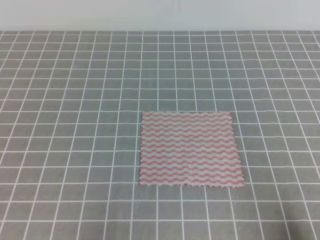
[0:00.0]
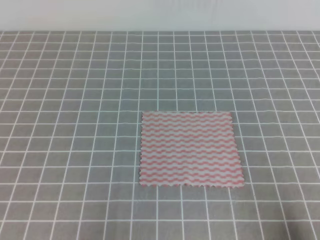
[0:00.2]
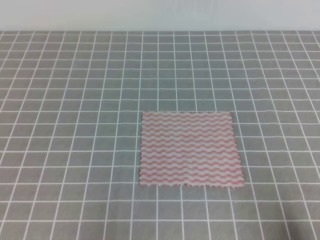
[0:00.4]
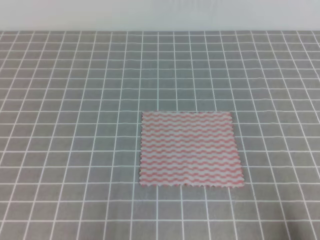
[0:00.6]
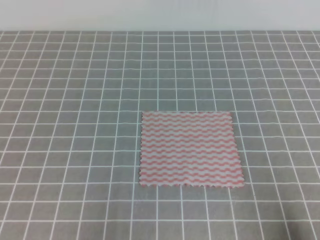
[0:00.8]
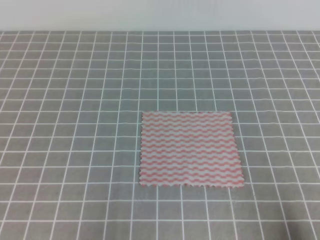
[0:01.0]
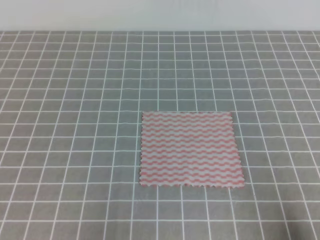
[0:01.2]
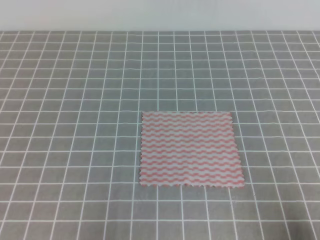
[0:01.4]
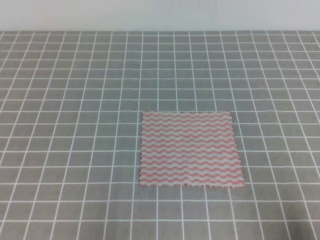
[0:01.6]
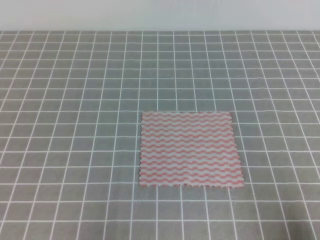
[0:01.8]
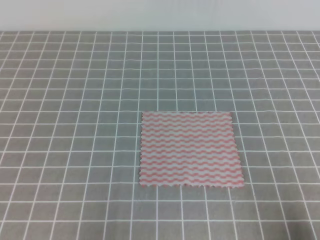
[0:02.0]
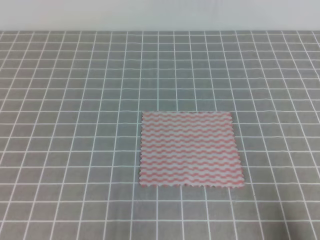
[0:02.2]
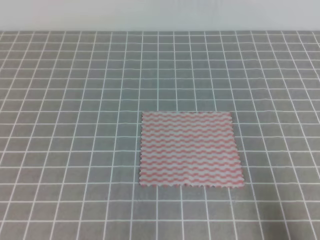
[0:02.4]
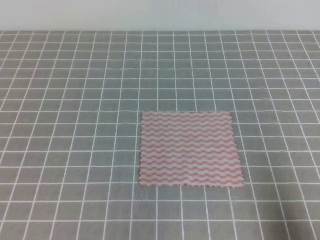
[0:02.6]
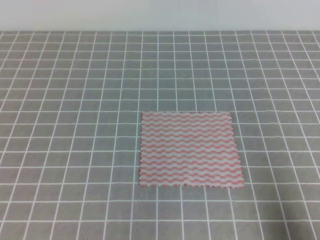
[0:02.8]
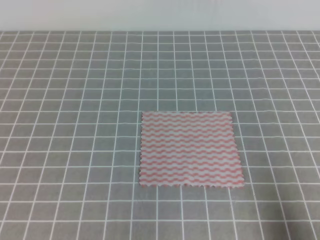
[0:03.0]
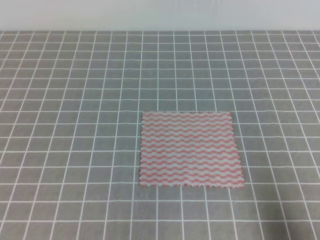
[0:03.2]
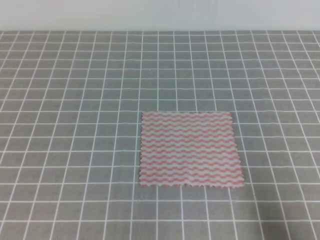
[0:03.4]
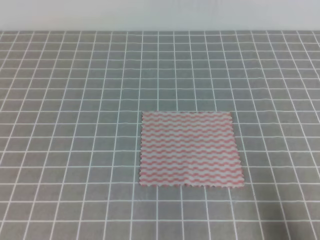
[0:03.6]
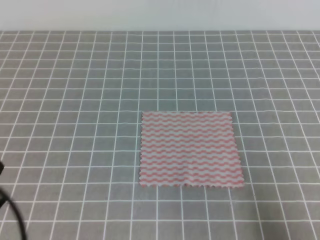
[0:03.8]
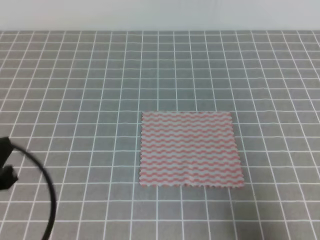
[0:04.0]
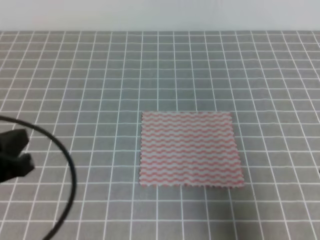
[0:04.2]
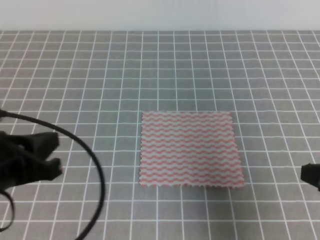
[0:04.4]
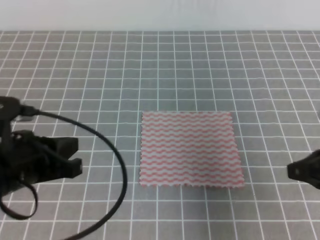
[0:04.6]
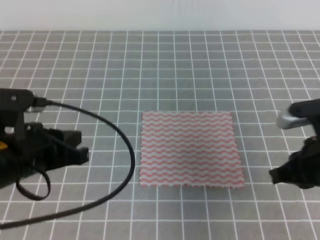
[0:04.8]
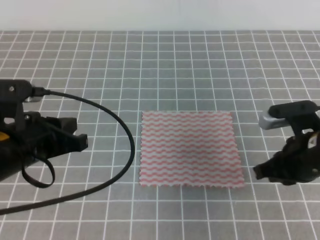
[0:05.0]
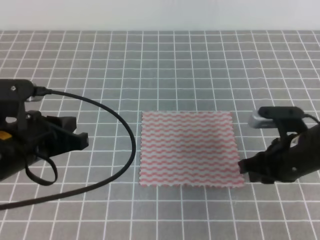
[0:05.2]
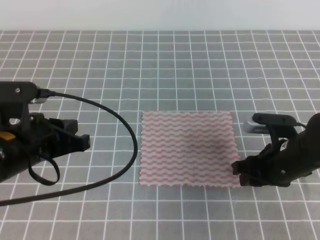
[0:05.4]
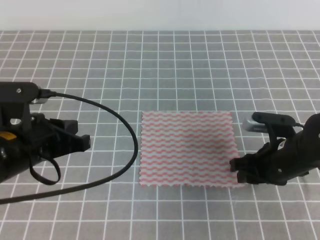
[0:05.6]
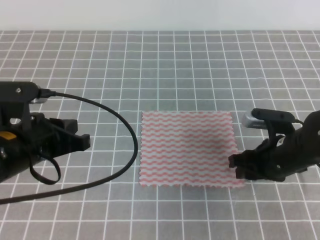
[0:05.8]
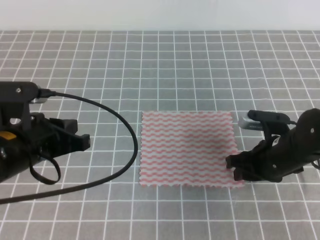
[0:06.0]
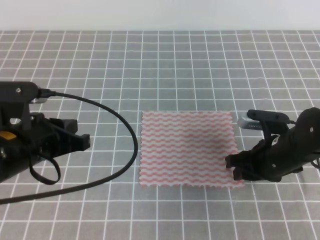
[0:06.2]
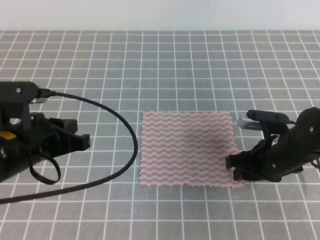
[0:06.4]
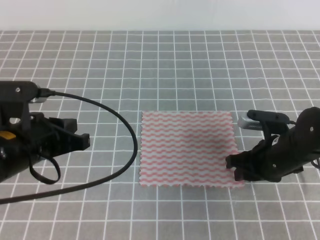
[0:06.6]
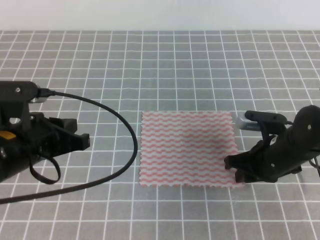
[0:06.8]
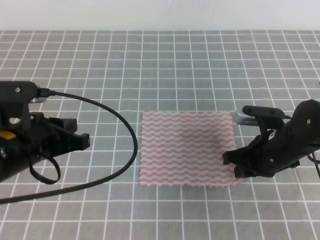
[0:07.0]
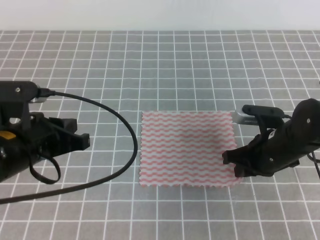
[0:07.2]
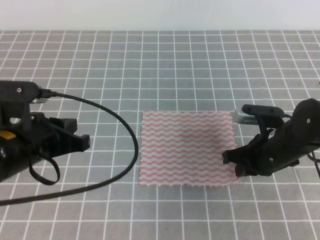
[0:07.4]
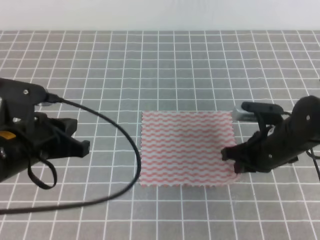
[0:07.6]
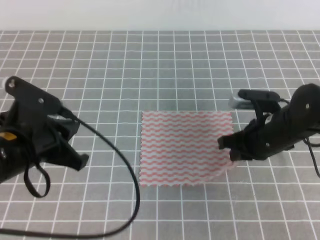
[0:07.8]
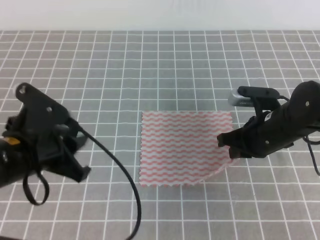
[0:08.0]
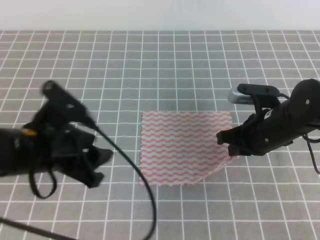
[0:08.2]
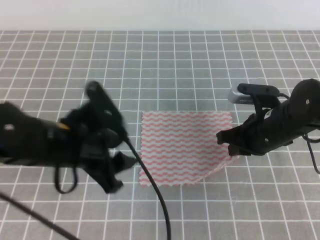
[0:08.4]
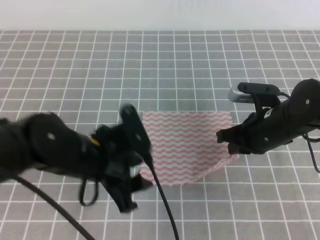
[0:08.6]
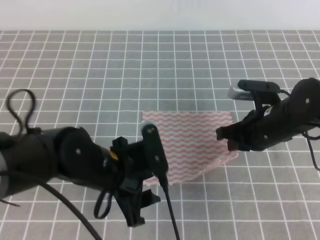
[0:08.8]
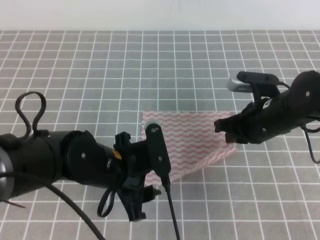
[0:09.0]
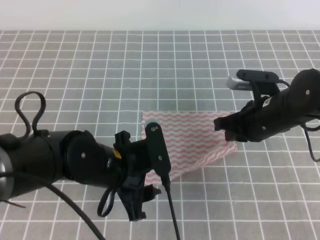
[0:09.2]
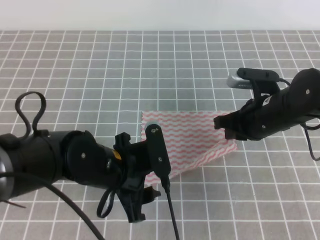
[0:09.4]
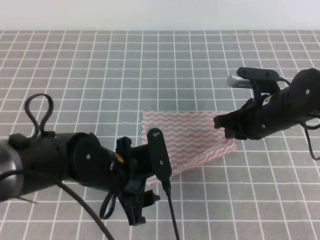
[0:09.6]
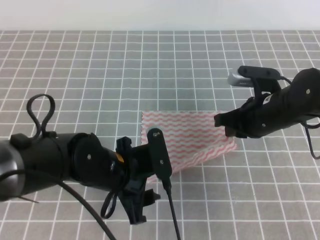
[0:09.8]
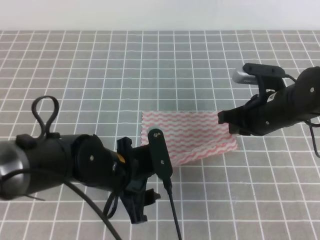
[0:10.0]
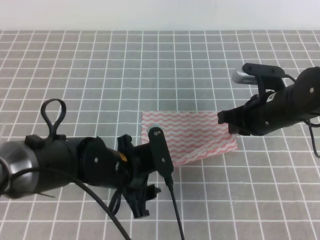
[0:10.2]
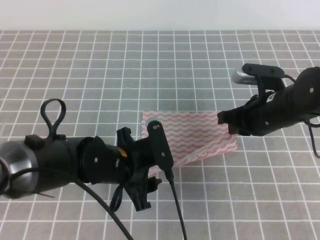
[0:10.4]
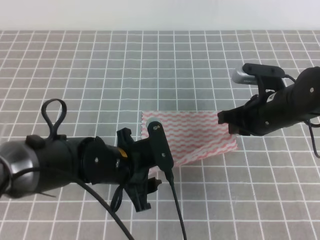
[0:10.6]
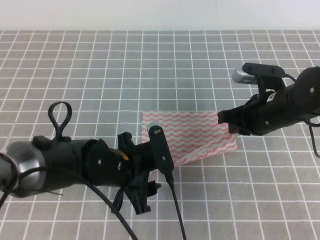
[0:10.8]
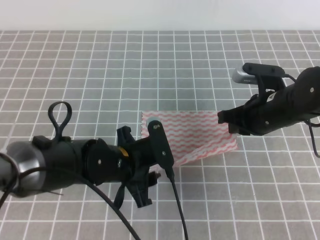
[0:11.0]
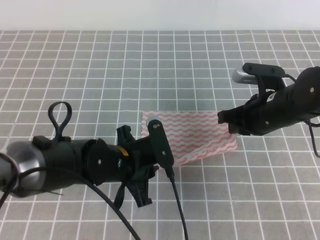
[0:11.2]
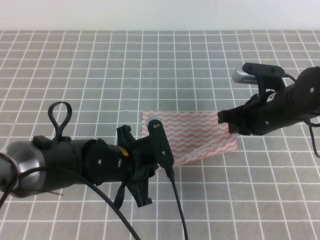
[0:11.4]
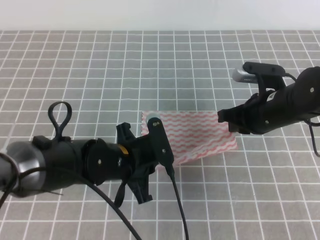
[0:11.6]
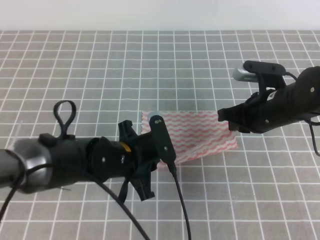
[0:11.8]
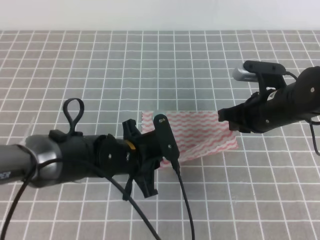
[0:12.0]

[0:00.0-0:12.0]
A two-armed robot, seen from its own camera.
0:03.0 to 0:04.4: The right gripper travels forward, to the left and upward by some 10 cm, while the left gripper moves forward, upward and to the right, some 15 cm.
0:04.4 to 0:06.0: The left gripper heads forward, covering approximately 5 cm. Meanwhile the right gripper moves forward, downward and to the left, roughly 20 cm, and opens.
0:06.0 to 0:07.6: The right gripper closes its fingers.
0:07.6 to 0:09.0: The left gripper heads to the right and downward, covering some 10 cm, and opens up.
0:09.0 to 0:10.4: The grippers stay close to where they were, moving slightly.
0:10.4 to 0:12.0: The left gripper closes.

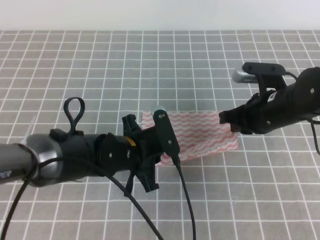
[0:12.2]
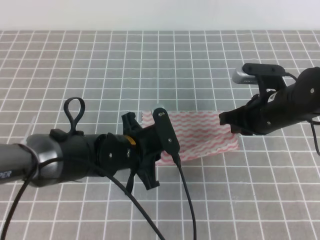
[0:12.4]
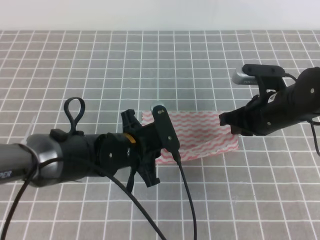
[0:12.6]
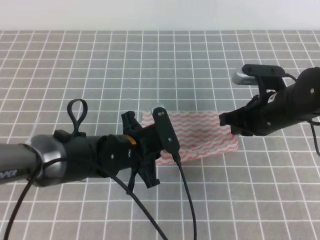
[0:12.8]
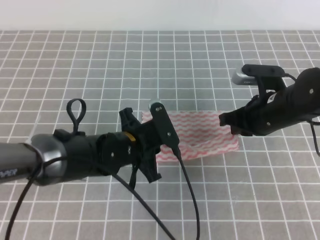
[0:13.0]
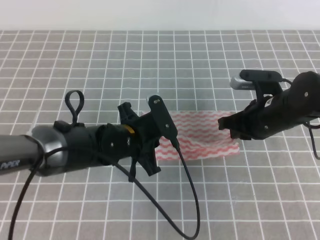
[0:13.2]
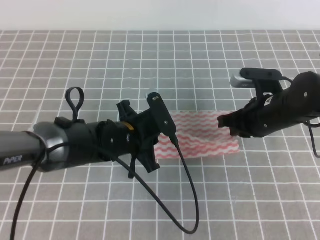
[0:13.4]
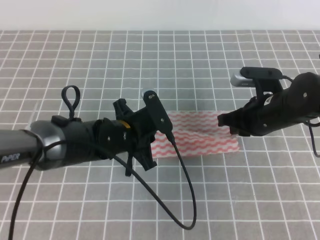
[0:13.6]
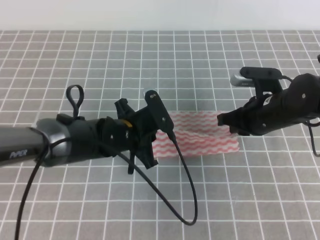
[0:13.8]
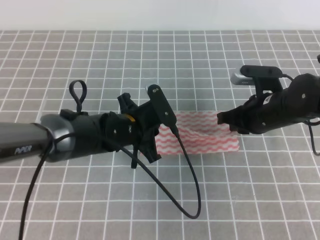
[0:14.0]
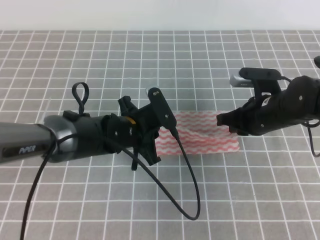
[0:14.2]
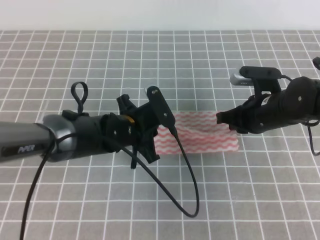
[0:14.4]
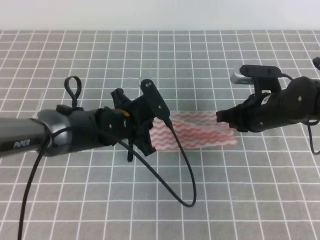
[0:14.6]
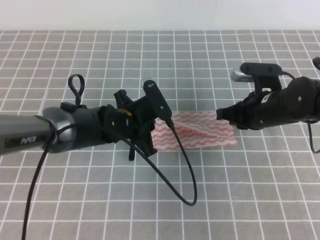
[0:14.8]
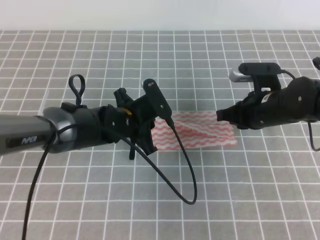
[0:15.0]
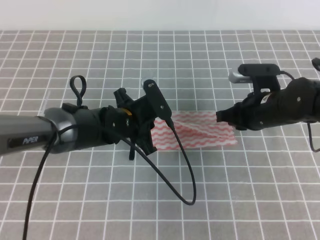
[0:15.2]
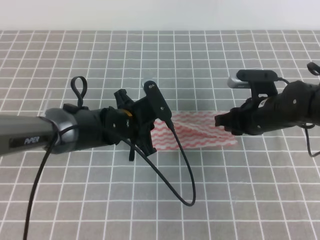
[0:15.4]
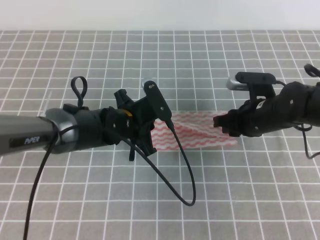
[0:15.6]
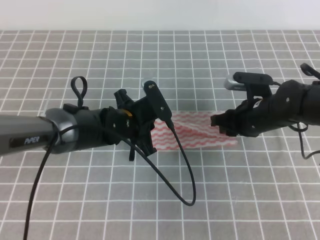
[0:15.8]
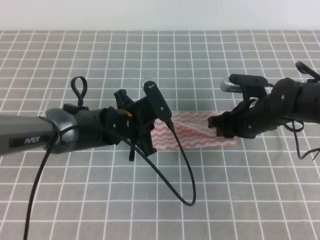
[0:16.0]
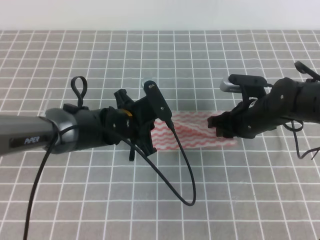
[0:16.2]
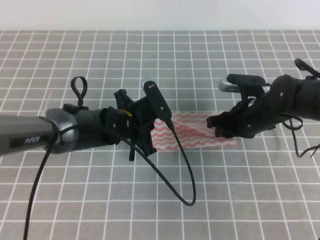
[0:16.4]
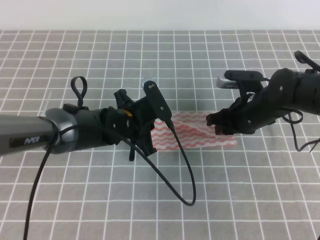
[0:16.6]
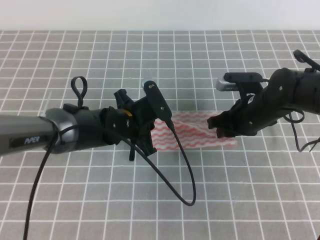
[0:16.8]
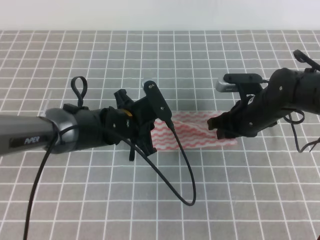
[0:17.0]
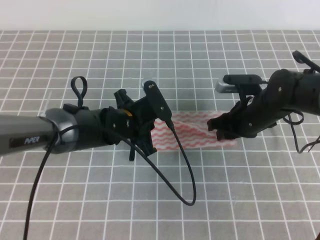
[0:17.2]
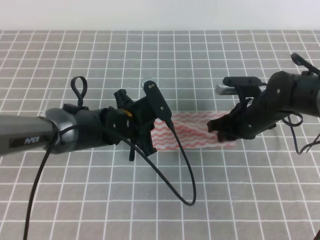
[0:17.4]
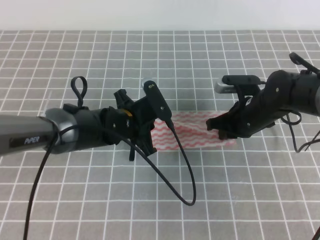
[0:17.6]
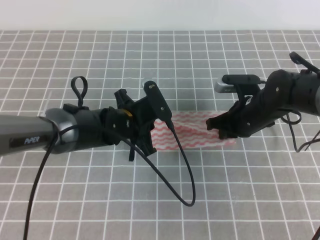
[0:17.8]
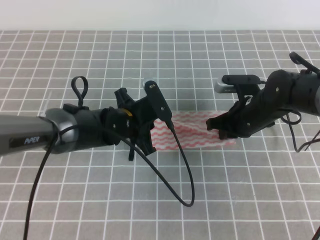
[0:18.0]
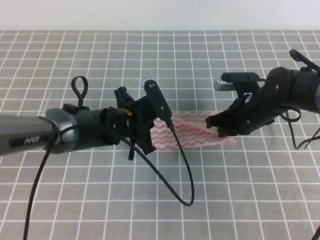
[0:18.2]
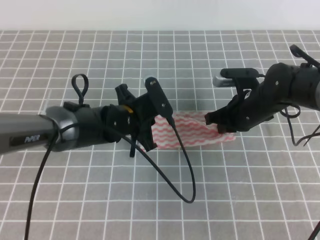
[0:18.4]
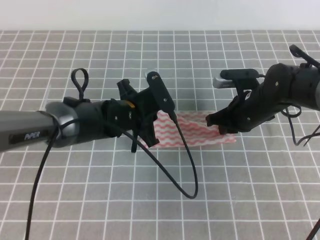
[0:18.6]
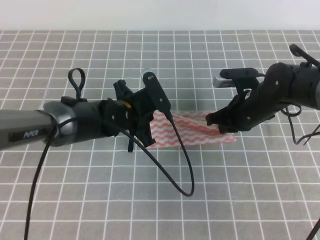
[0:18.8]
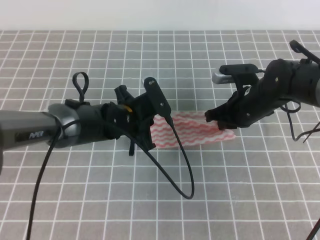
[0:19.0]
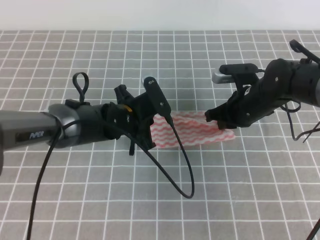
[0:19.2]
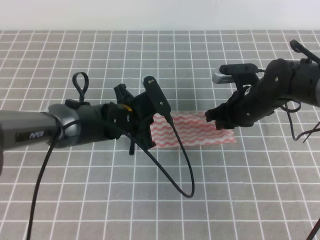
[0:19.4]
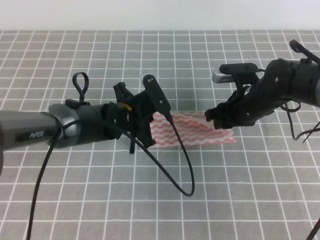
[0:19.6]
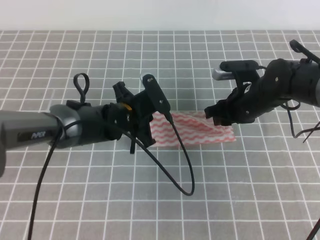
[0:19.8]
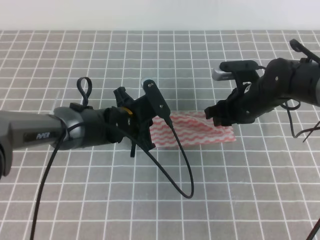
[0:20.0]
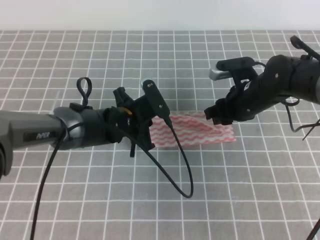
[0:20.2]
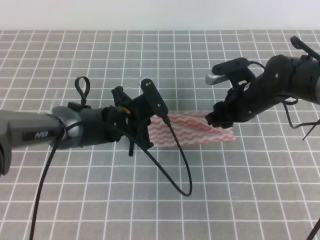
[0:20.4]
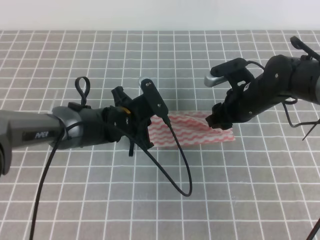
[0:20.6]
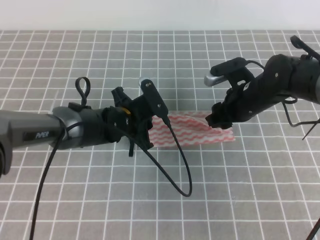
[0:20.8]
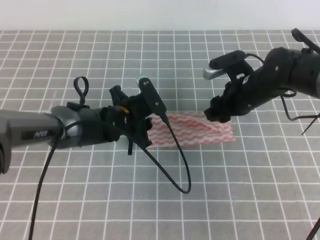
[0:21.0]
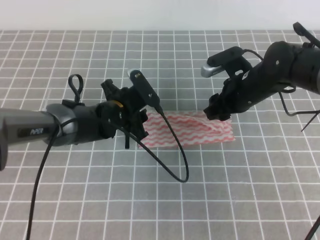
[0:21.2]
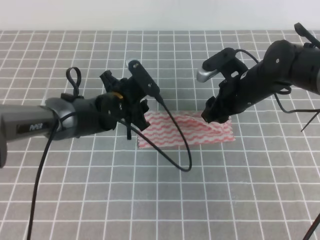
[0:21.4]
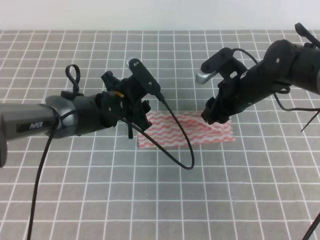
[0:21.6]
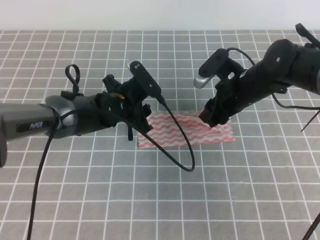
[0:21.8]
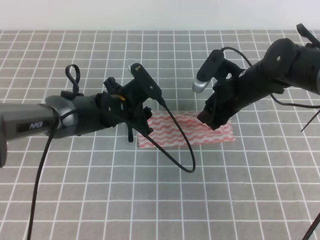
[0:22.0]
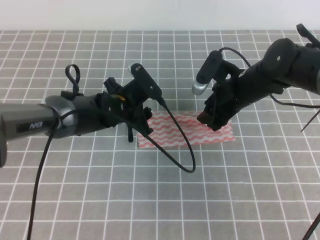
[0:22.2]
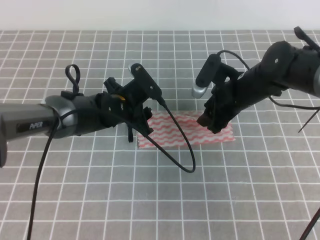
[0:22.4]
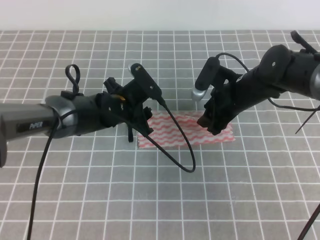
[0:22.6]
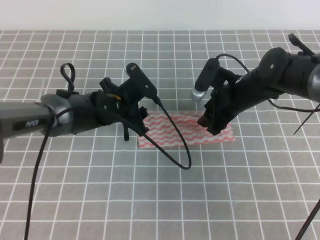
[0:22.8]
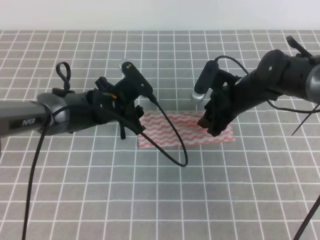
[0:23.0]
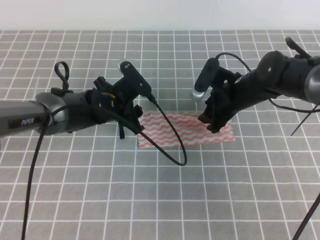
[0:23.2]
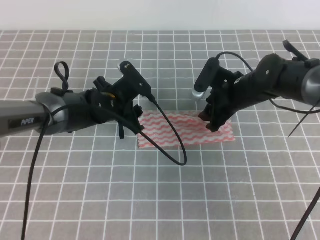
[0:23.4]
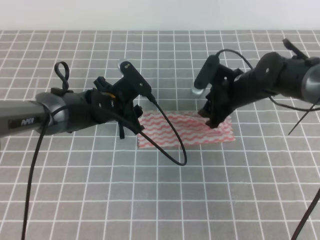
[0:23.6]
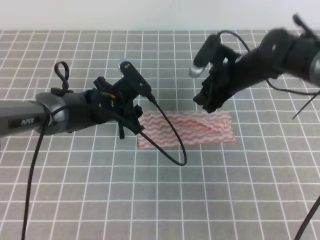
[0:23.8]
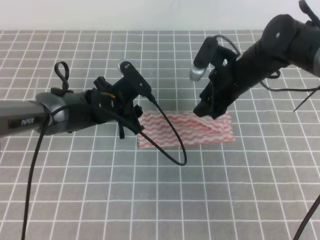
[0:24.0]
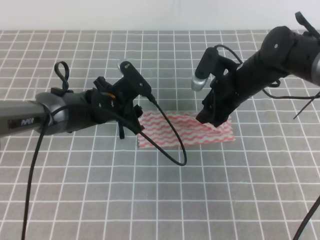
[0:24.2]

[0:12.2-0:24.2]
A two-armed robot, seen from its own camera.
Step, 0:13.4 to 0:15.4: Tidy up the towels.
Step, 0:15.6 to 0:20.4: Fold the towel from right to left with the right gripper.
Step, 0:20.6 to 0:21.8: Tidy up the towels.
0:12.2 to 0:13.8: There are only small adjustments of the grippers.
0:13.8 to 0:15.2: There are only small adjustments of the grippers.
0:15.2 to 0:16.6: The right gripper opens up.
0:16.6 to 0:18.2: The right gripper closes its fingers.
0:18.2 to 0:19.8: The right gripper opens up.
0:19.8 to 0:21.2: The left gripper opens its fingers.
0:22.6 to 0:24.2: The grippers move only a little.
